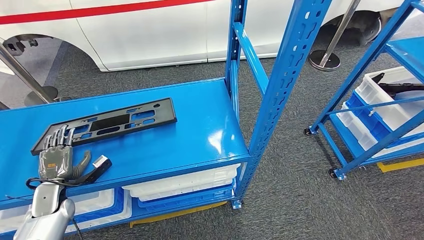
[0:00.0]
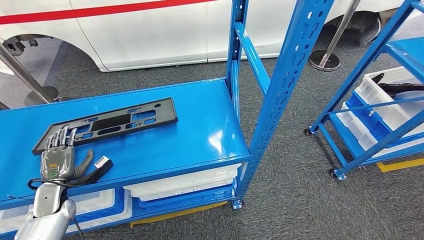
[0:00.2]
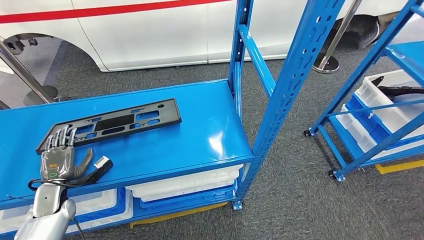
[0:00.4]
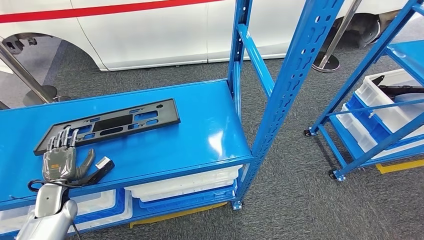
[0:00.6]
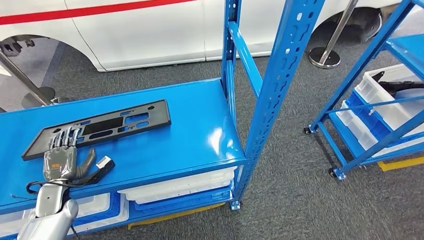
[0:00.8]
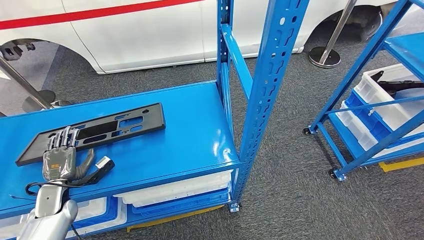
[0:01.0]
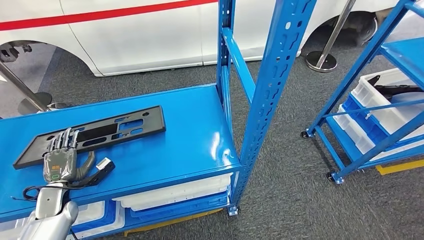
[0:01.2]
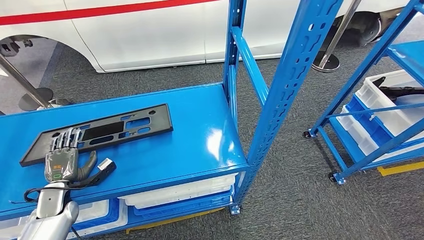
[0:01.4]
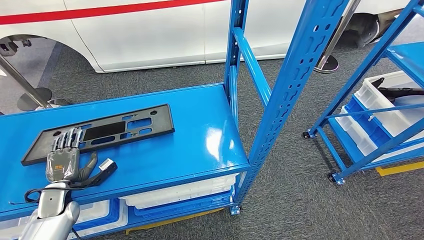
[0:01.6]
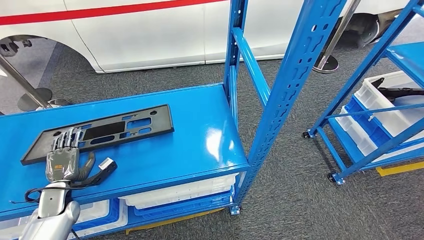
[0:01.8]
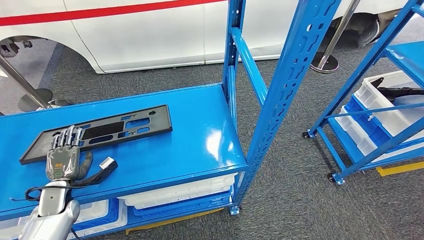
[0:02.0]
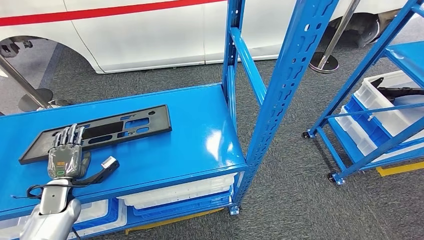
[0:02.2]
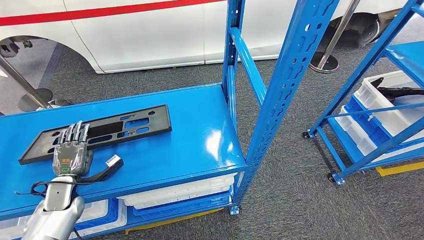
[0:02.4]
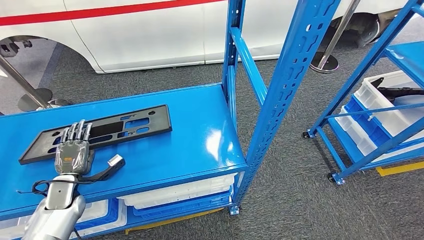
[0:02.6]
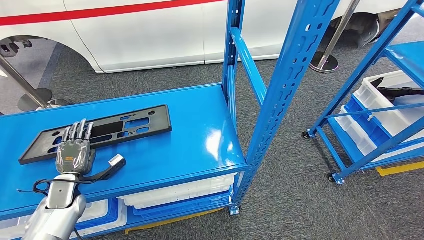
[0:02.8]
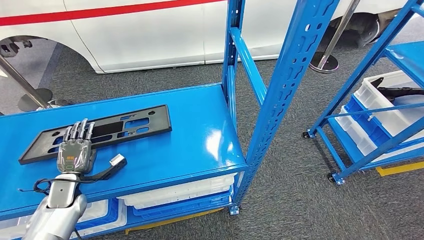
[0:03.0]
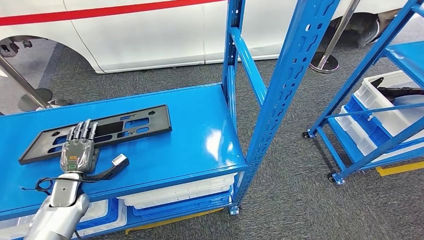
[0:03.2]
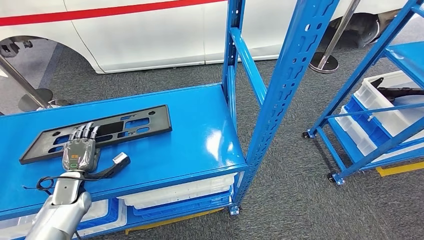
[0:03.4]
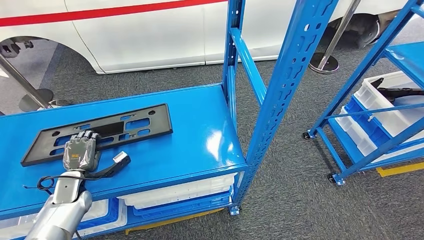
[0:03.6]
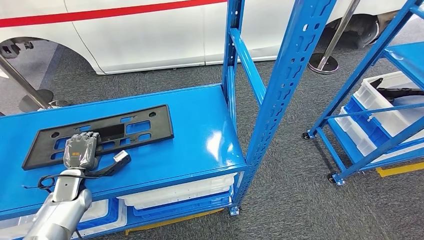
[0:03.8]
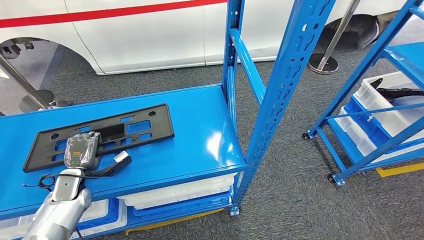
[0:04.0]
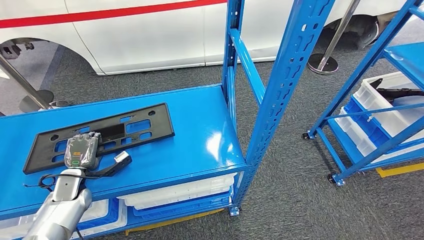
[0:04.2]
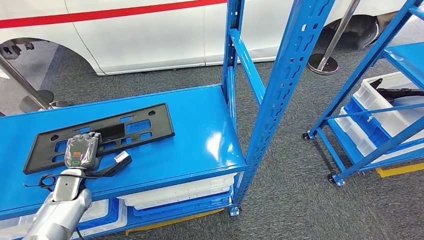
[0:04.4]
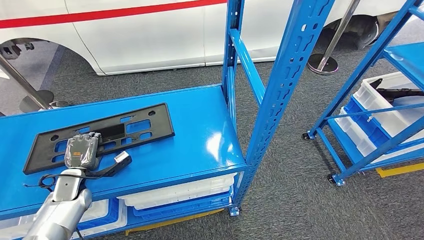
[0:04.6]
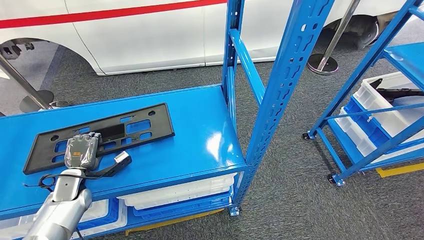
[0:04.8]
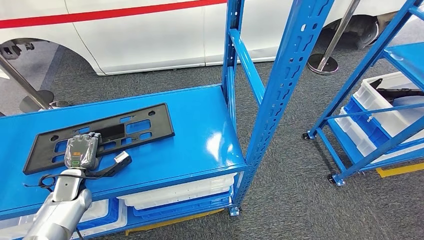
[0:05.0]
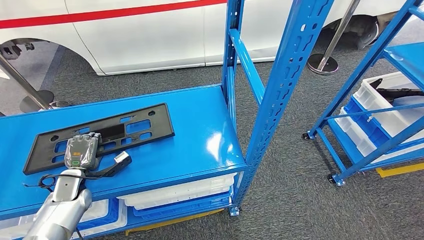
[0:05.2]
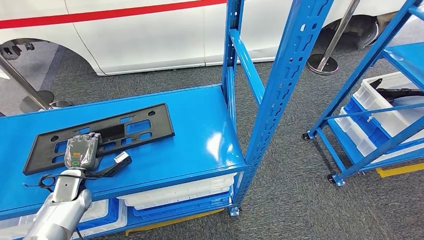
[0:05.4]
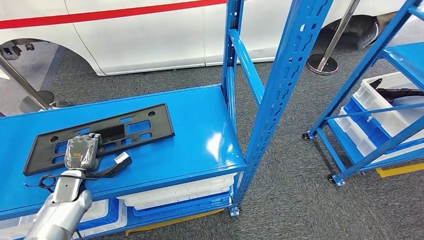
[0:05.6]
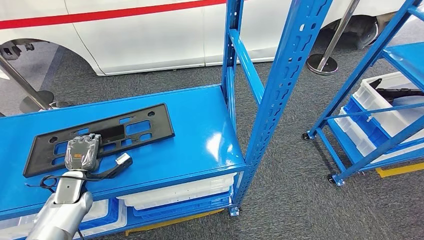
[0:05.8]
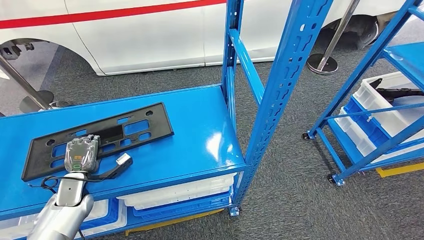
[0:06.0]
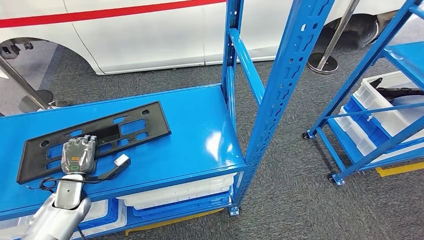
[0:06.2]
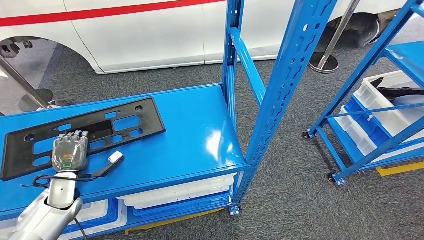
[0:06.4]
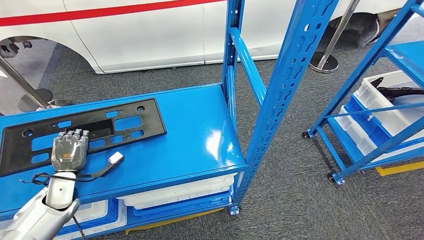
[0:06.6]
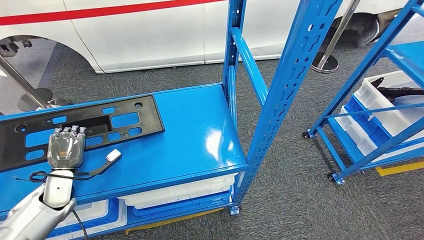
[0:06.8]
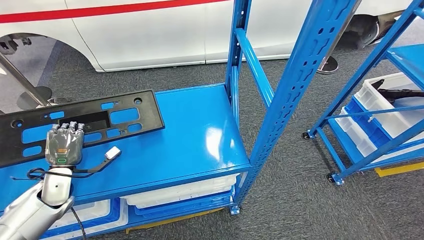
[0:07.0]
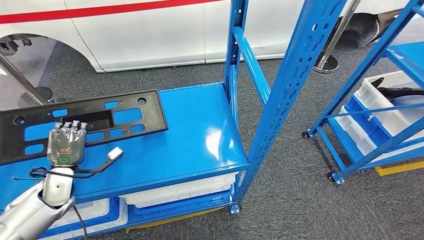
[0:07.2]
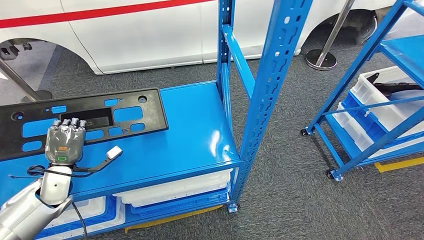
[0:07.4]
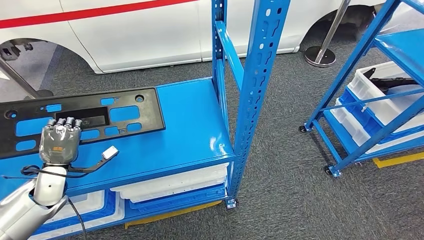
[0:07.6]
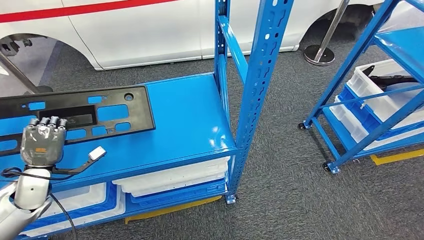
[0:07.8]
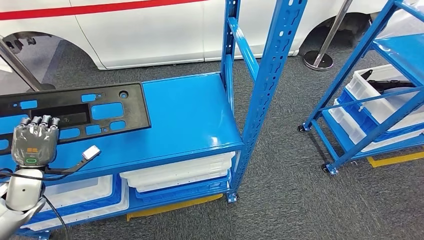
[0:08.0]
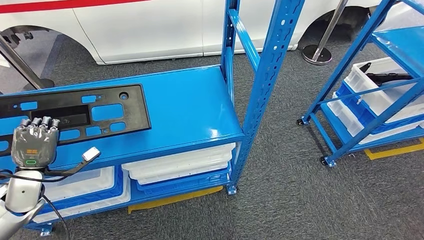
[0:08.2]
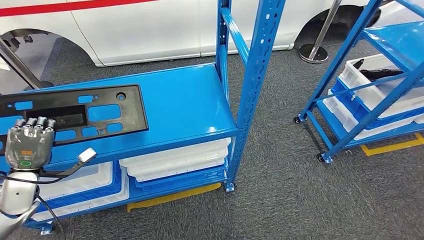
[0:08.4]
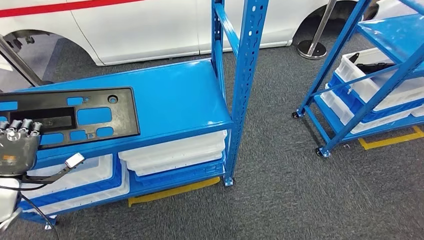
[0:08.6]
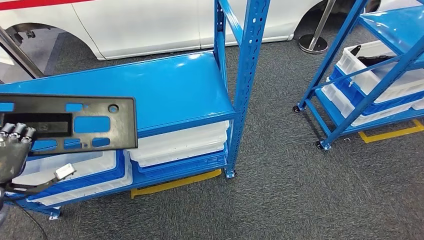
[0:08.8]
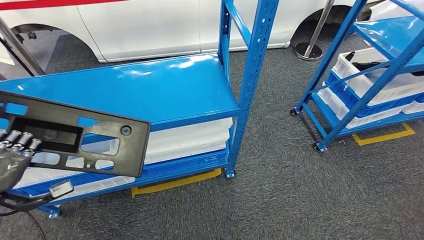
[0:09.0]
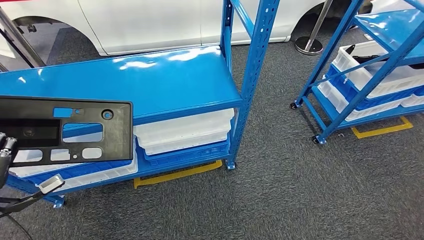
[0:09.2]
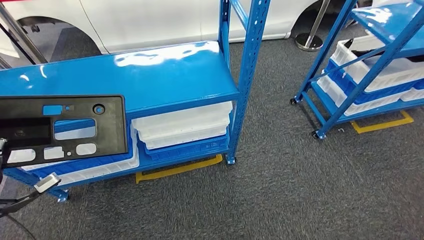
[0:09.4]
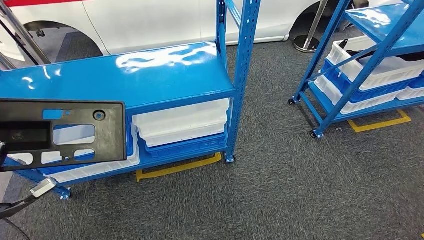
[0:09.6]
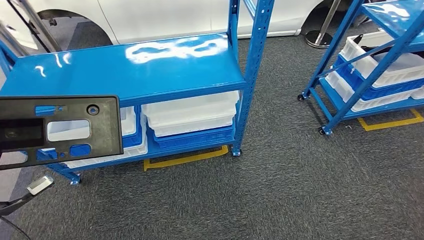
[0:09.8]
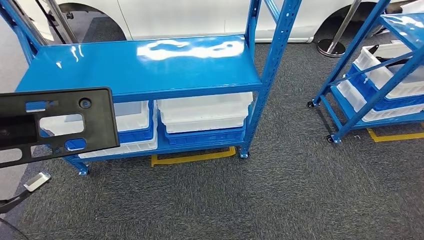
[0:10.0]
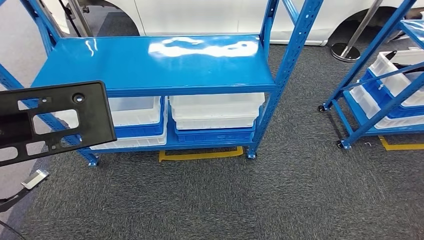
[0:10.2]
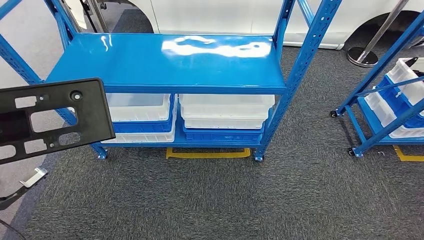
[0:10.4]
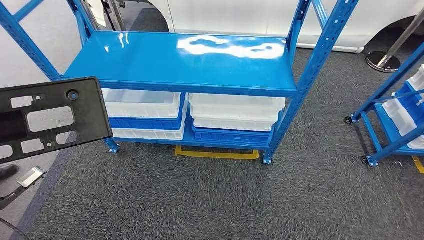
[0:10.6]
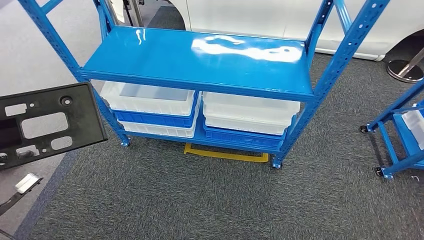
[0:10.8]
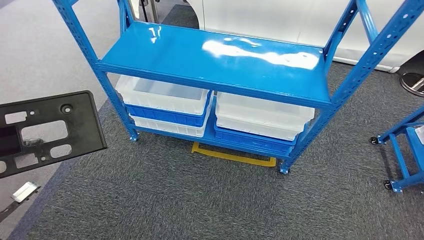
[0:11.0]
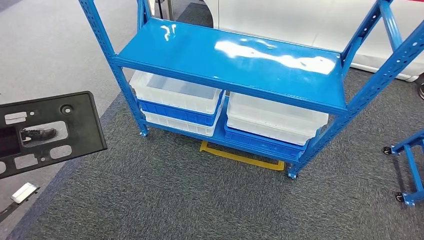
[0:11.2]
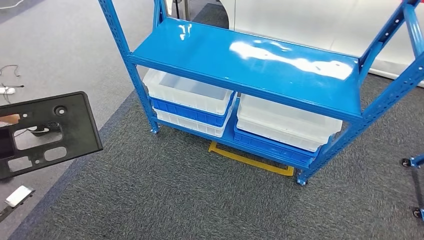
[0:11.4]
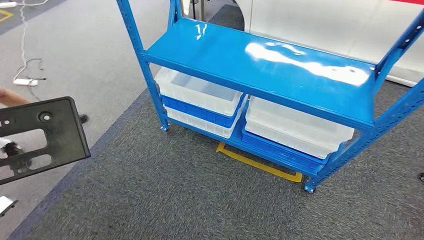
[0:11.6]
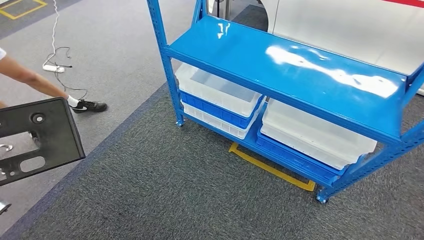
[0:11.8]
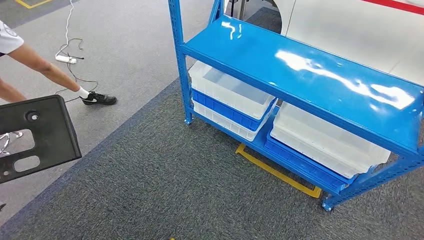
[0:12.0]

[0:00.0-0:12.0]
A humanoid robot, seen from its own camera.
Step, 0.0 to 8.6 s: Pick up the large material from the shelf.
1.6 to 6.0 s: The hands make only small movements.

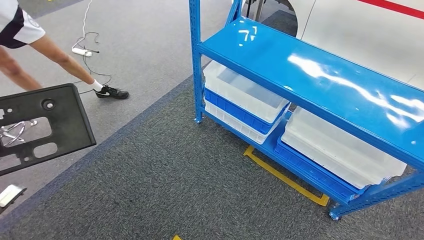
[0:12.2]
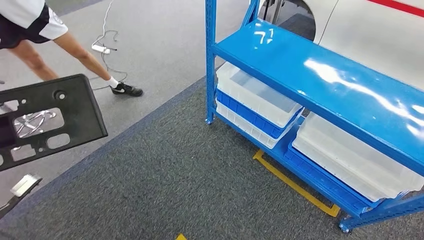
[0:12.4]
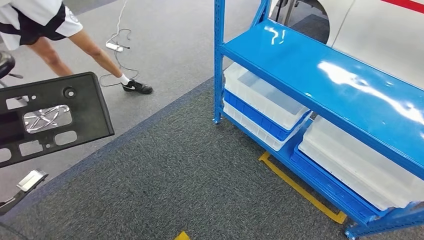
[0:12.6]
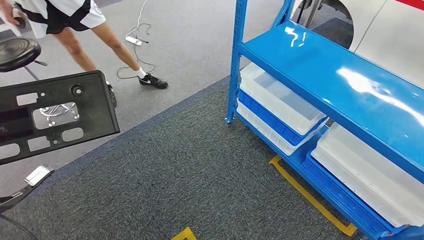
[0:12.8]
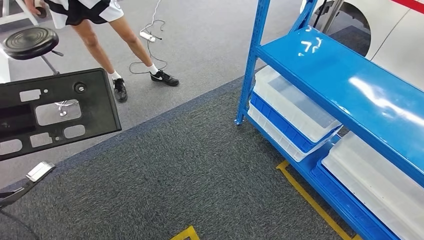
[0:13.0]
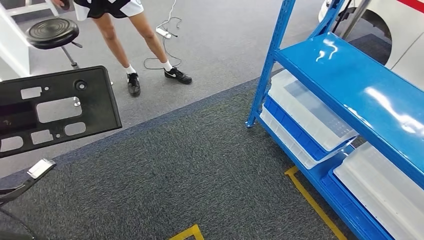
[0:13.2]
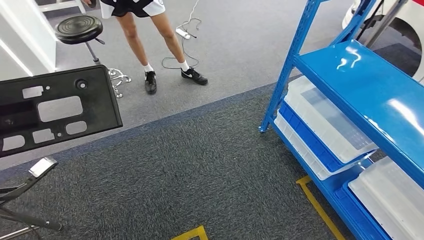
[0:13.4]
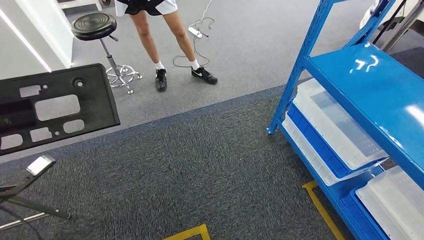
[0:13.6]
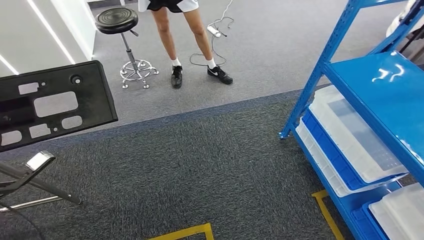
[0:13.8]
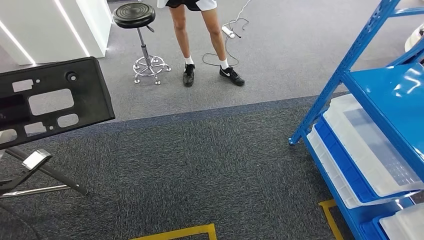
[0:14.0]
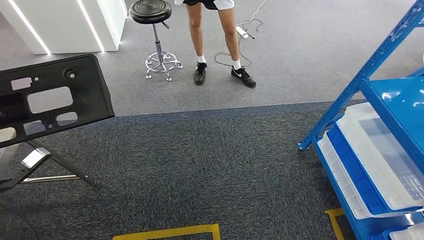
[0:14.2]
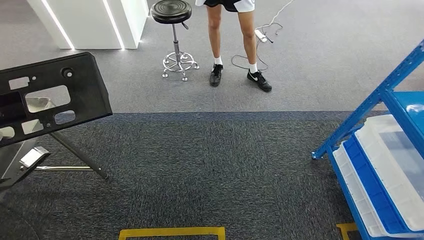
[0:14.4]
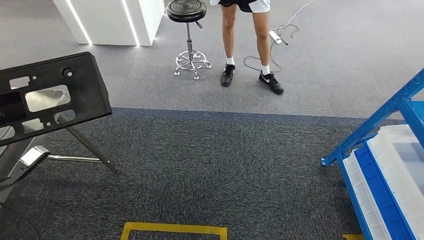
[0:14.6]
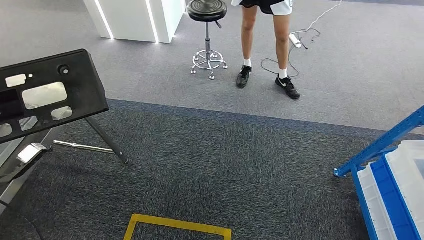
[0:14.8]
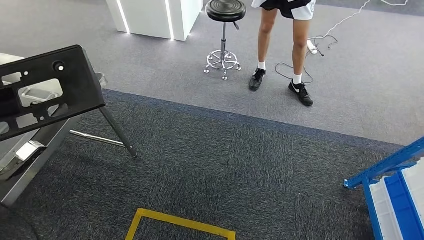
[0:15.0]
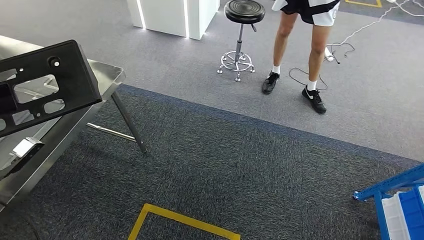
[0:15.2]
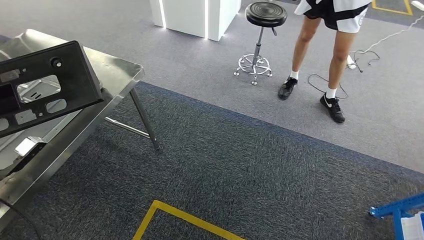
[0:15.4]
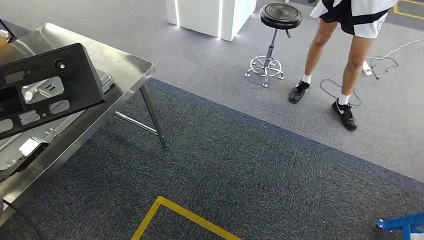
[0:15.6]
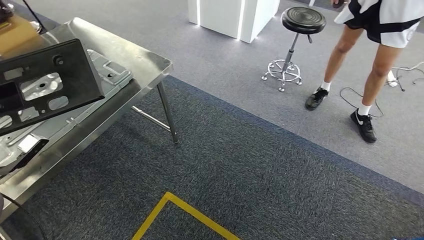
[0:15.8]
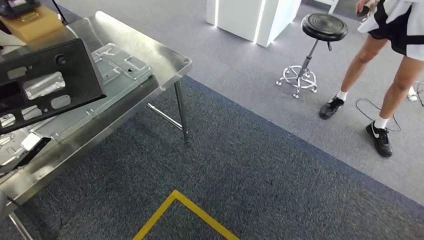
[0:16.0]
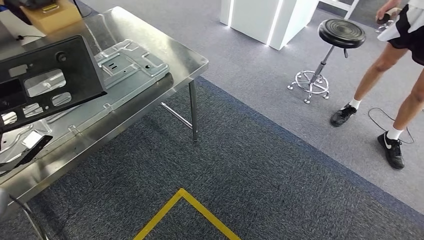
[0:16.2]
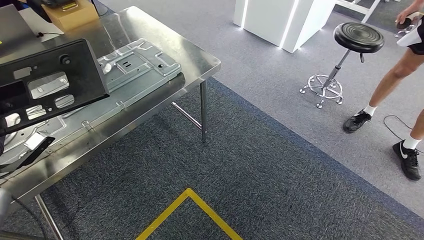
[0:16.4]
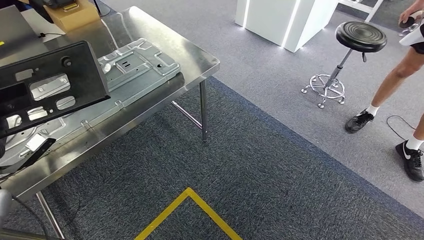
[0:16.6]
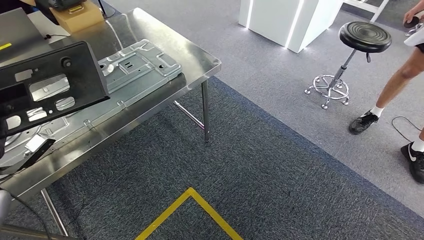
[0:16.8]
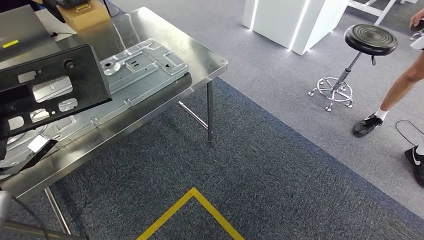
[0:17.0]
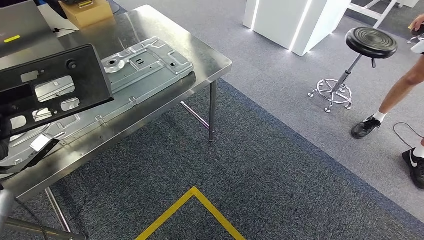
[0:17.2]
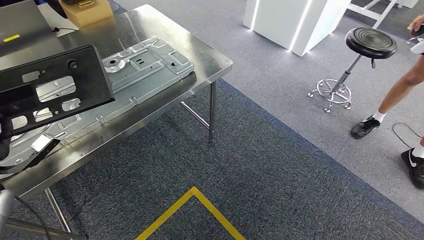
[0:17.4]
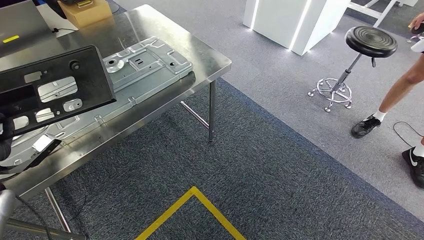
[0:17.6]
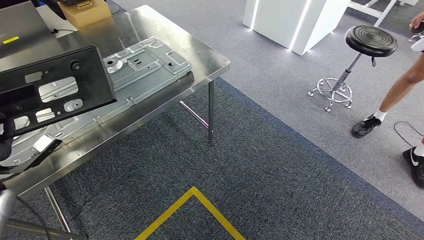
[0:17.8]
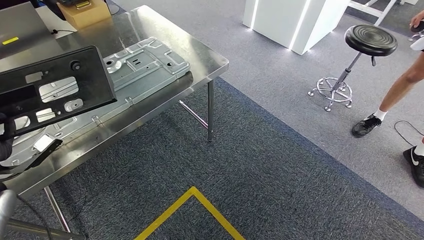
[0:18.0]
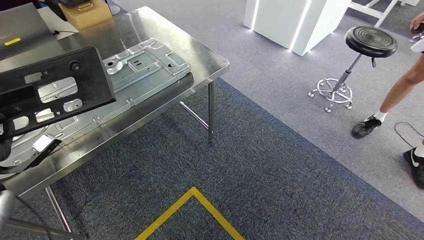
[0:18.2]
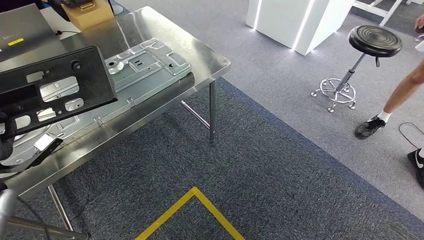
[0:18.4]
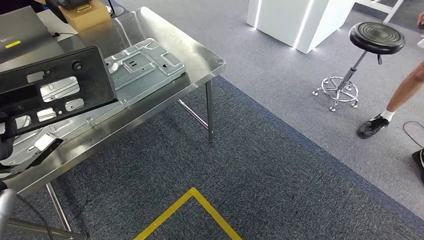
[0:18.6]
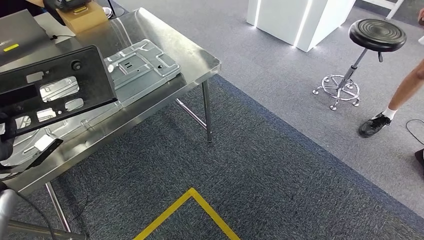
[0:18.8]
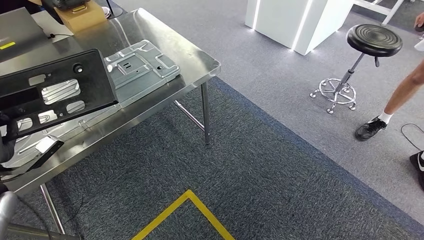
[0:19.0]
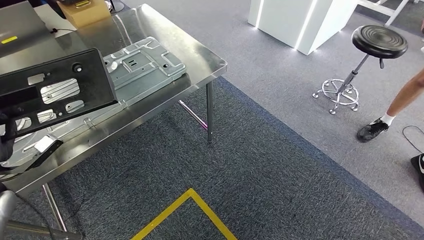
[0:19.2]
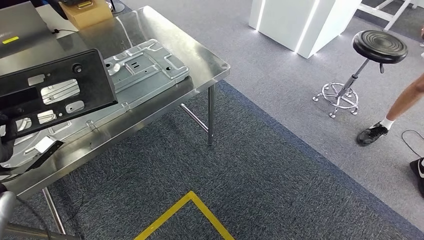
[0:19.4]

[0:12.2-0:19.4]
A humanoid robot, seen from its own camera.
Step, 12.2 to 19.4 s: Move the large material to the workbench.
18.0 to 19.4 s: The two hands keep their place.
